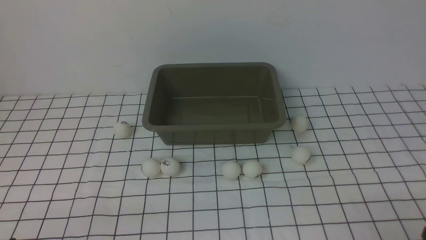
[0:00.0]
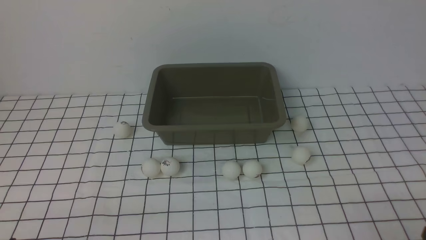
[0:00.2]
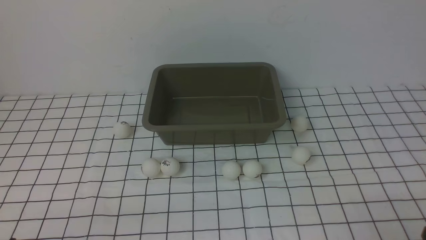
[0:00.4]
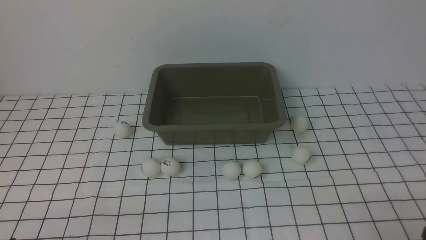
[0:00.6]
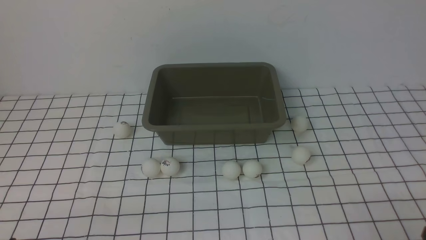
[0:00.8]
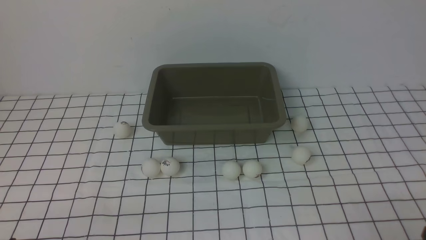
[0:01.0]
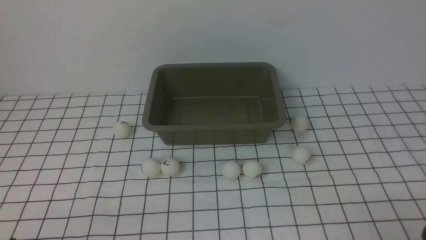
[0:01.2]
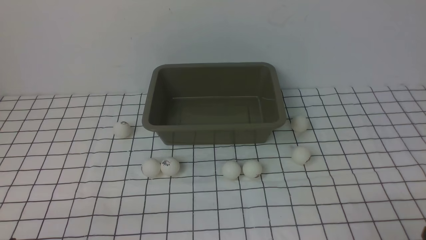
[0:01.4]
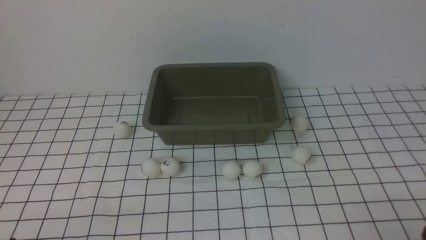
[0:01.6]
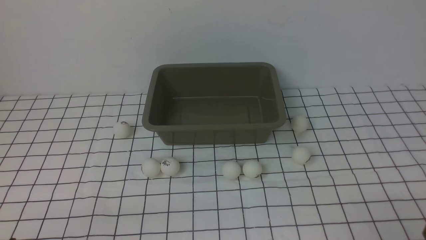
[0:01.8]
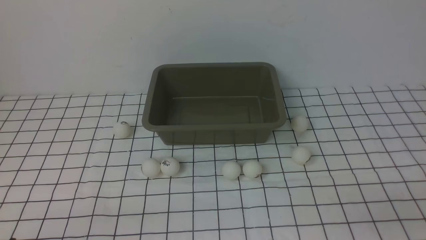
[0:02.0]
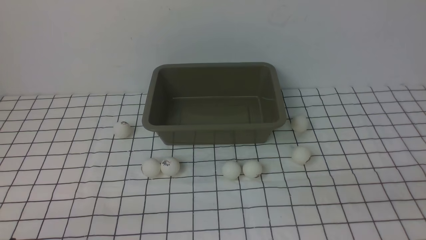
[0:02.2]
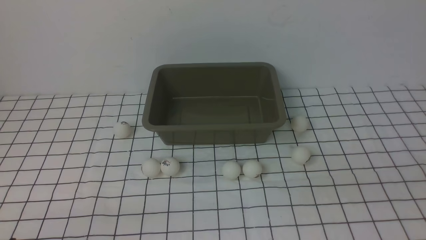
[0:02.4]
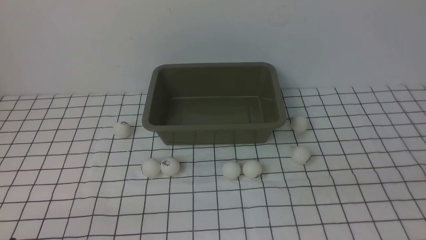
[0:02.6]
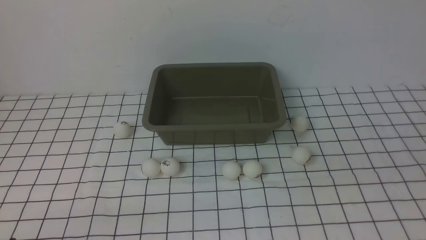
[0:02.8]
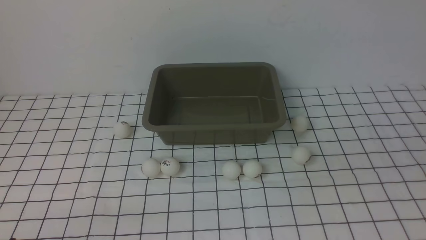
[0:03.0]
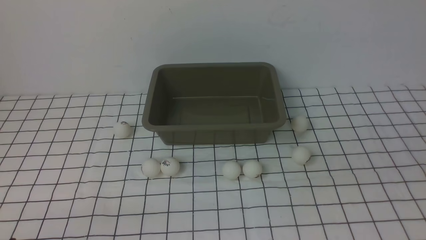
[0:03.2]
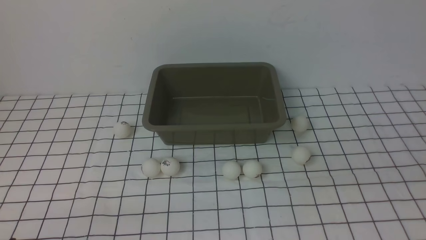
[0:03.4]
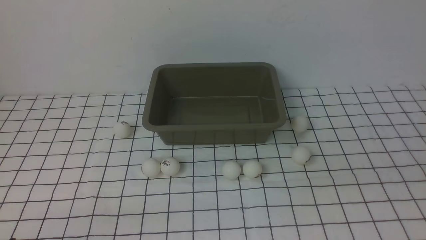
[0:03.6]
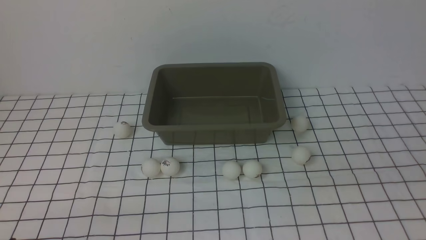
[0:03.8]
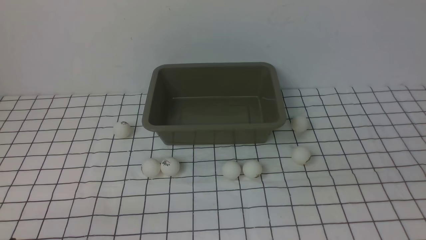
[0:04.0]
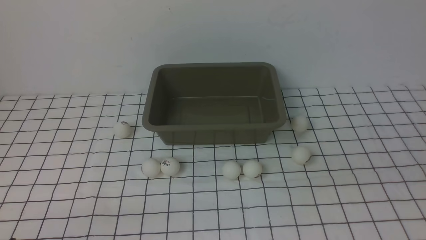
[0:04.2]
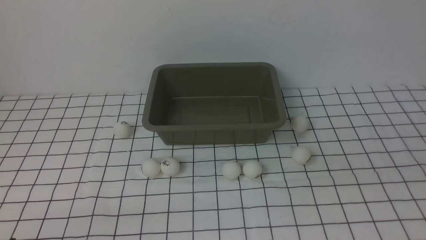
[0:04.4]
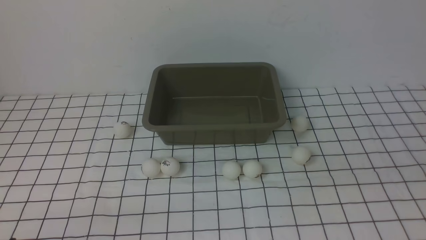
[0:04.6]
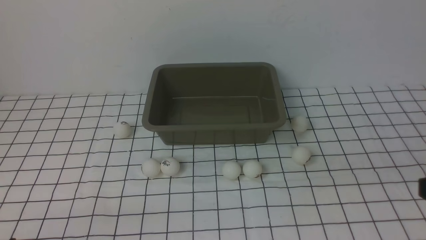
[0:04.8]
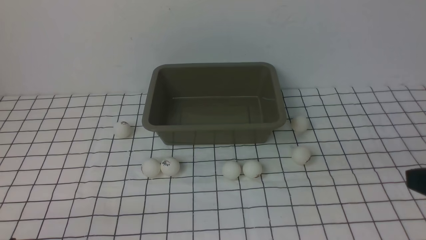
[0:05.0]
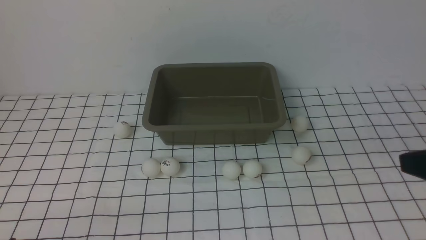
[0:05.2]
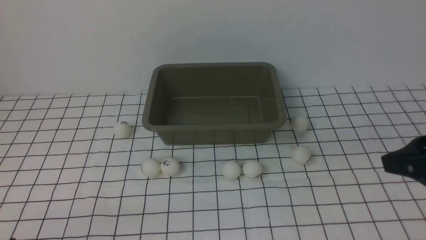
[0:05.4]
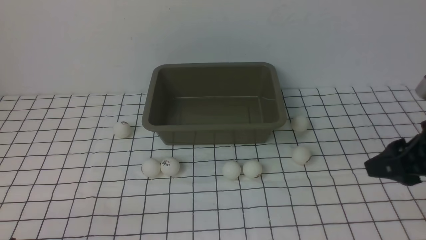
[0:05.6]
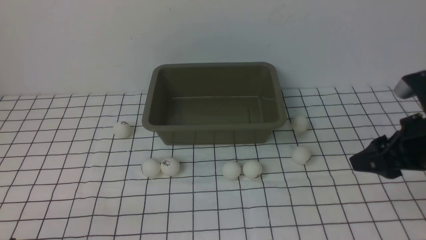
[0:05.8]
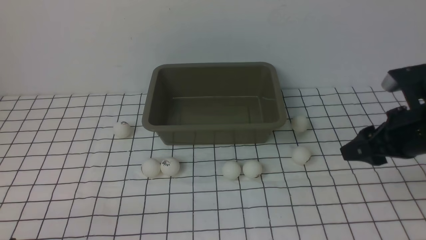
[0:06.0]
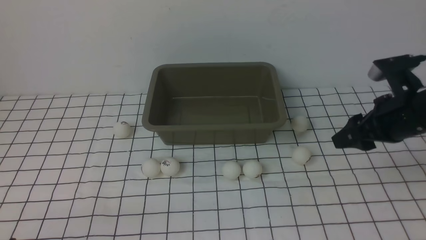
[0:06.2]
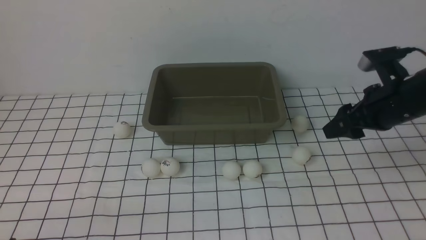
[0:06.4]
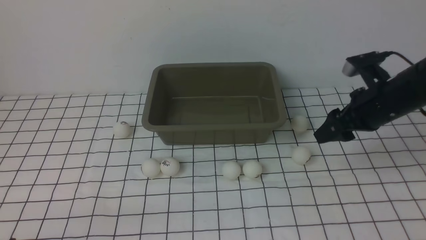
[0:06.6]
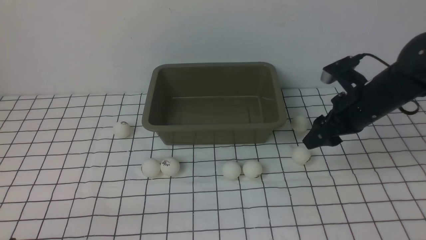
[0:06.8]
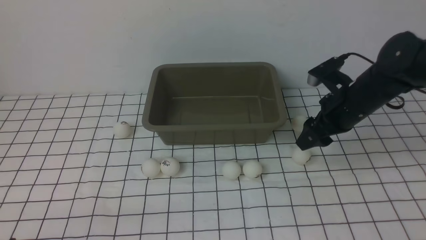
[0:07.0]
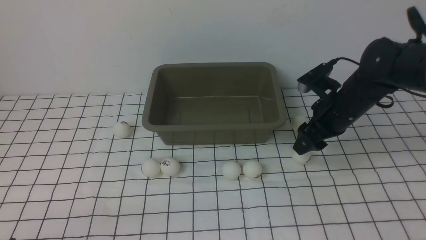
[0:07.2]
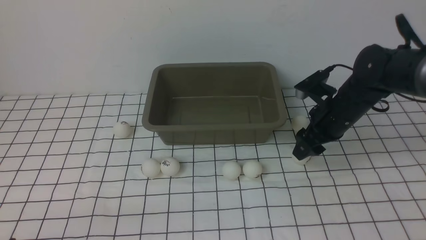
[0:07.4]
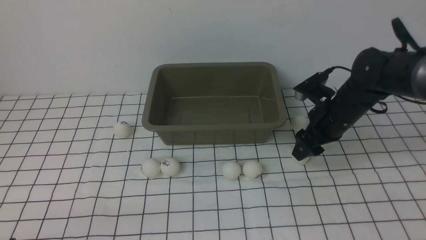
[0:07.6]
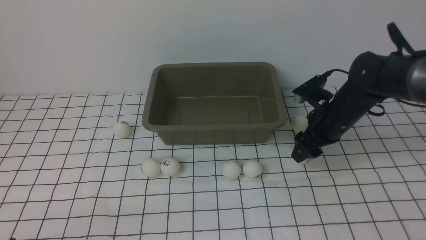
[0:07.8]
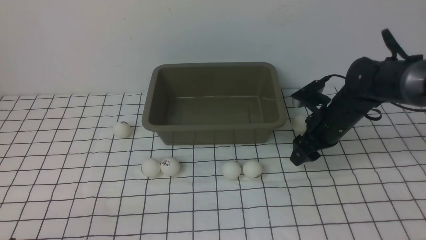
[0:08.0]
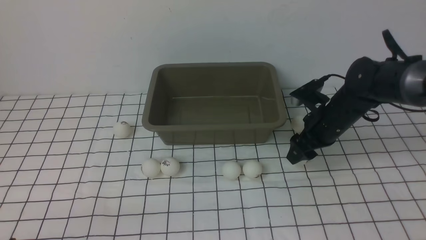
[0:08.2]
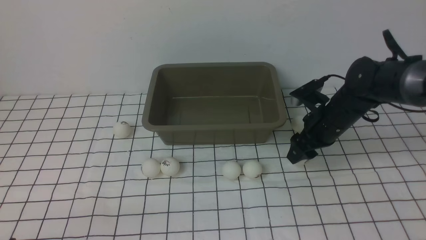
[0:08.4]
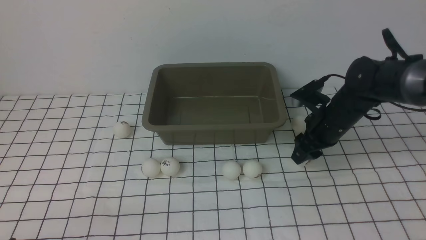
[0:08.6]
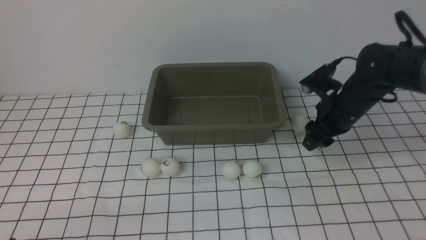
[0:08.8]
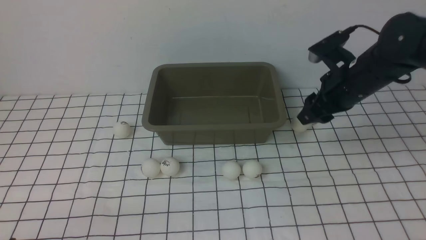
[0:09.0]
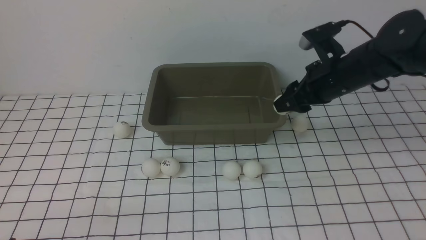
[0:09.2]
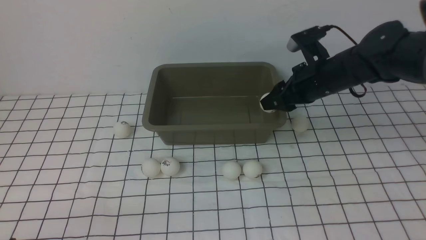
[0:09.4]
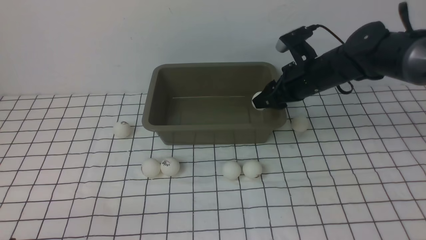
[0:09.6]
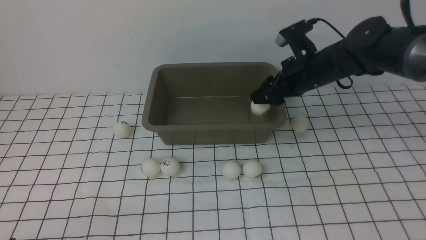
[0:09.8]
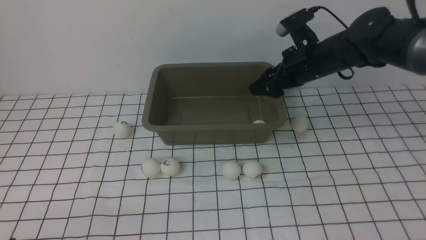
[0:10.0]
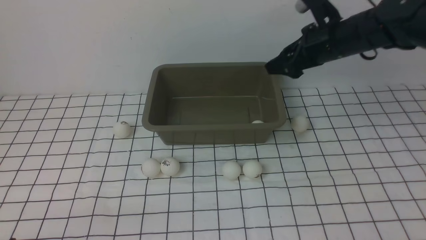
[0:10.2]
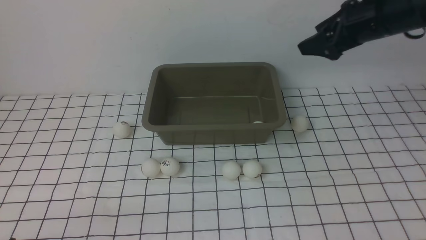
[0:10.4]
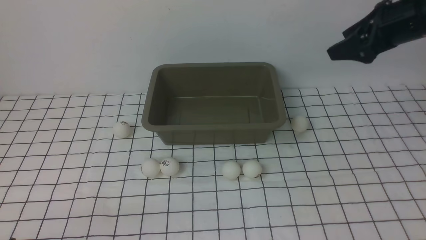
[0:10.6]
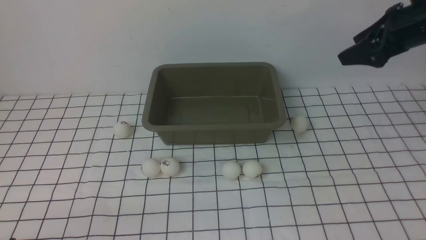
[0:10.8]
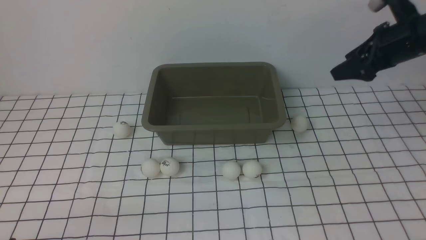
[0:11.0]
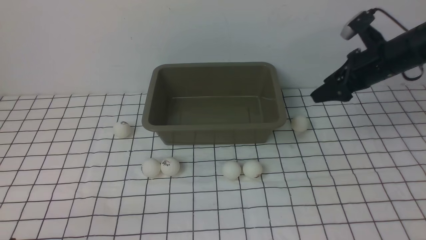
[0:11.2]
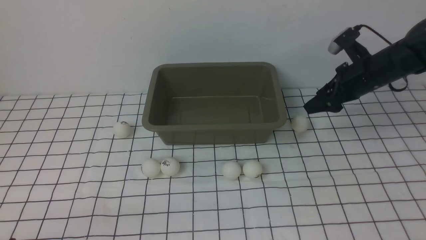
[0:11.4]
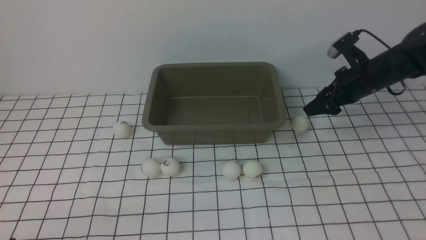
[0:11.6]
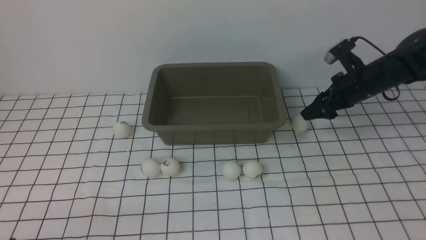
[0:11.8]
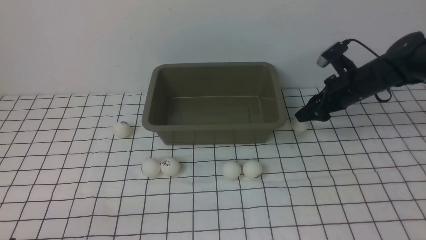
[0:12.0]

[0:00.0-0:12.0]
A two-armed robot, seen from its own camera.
Step, 0:00.0 to 0:08.8: use the right arm to clamp the table tennis ball closest to it.
Step, 0:09.2 to 0:10.0: use the right arm to put the table tennis ball into the box.
0:00.0 to 0:01.6: Both grippers stay about where they are.
0:04.4 to 0:06.0: The right gripper travels forward by approximately 20 cm.
0:06.0 to 0:07.6: The right gripper heads forward, downward and to the left, covering about 15 cm.
0:07.6 to 0:09.0: The right gripper moves upward, some 10 cm, and closes up.
0:09.0 to 0:10.4: The right gripper is displaced upward by roughly 10 cm, and opens its fingers.
0:10.4 to 0:12.0: The right gripper travels downward by about 15 cm.

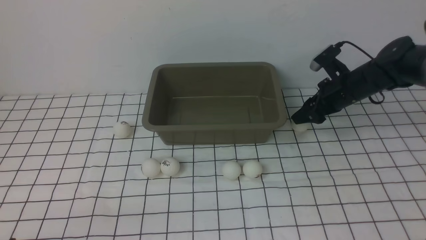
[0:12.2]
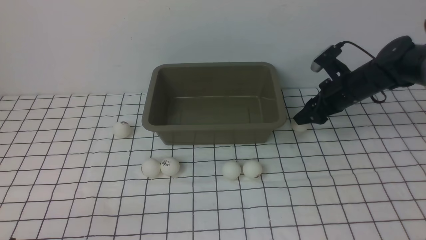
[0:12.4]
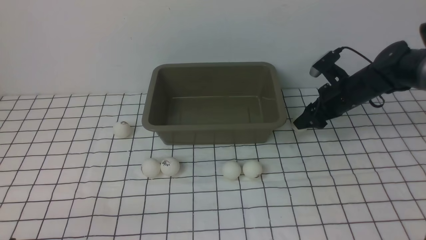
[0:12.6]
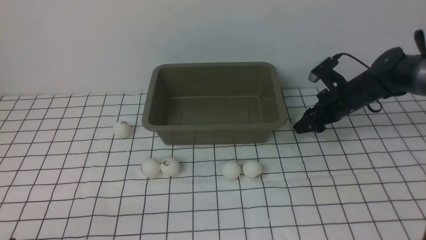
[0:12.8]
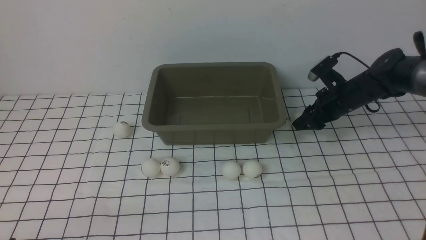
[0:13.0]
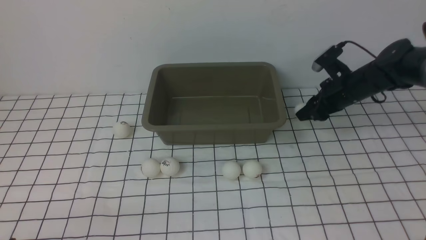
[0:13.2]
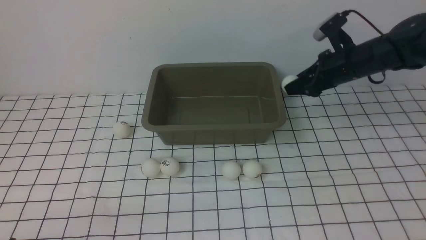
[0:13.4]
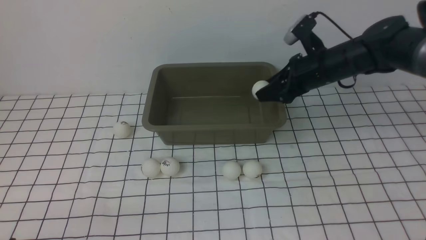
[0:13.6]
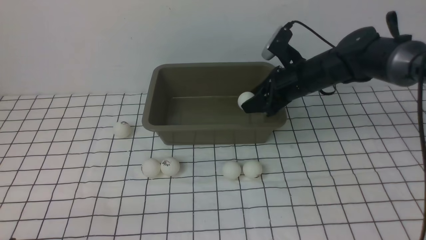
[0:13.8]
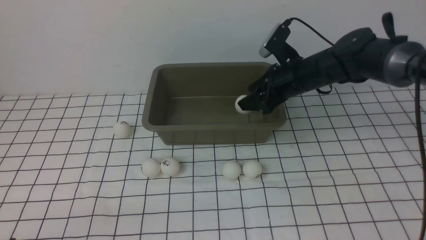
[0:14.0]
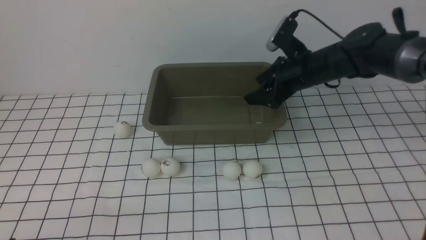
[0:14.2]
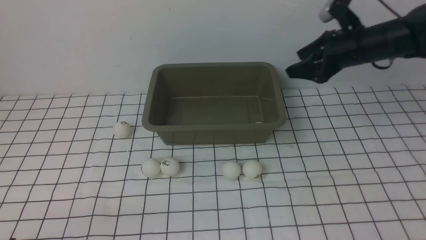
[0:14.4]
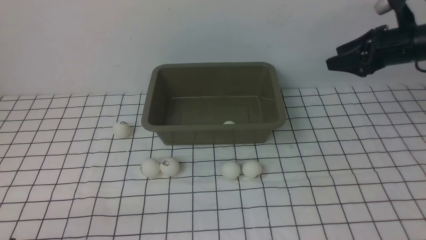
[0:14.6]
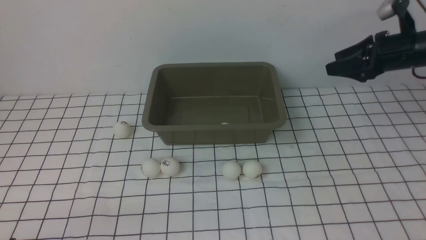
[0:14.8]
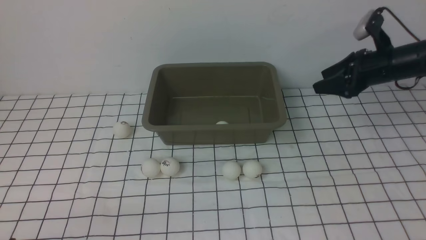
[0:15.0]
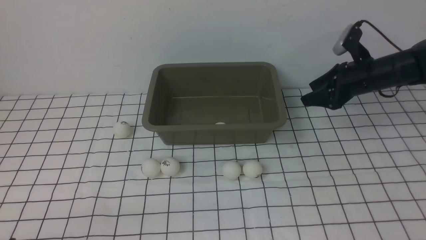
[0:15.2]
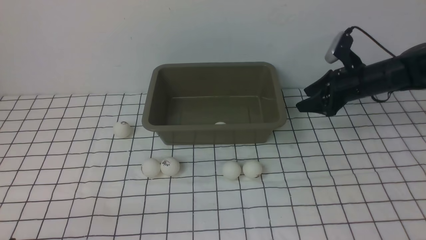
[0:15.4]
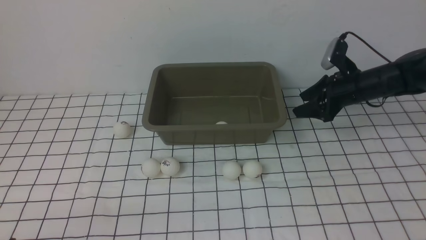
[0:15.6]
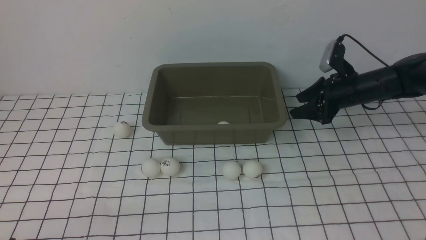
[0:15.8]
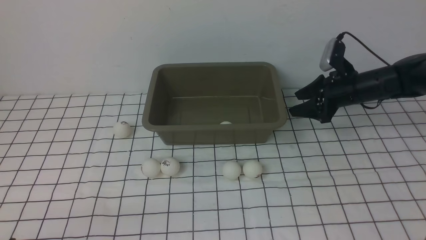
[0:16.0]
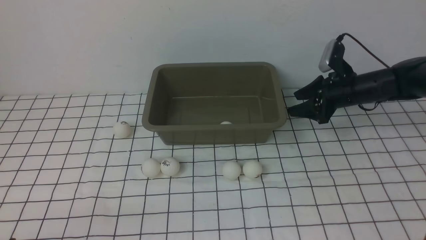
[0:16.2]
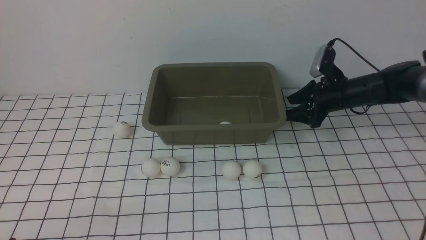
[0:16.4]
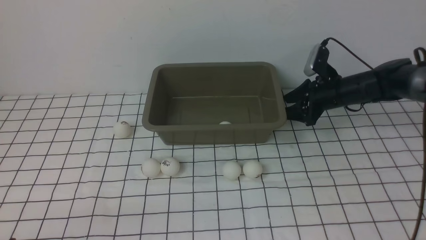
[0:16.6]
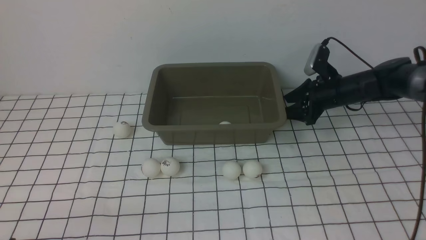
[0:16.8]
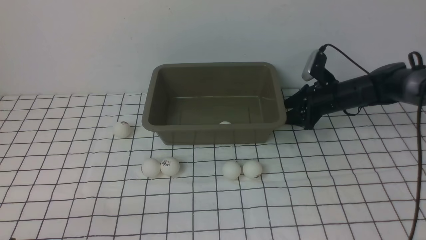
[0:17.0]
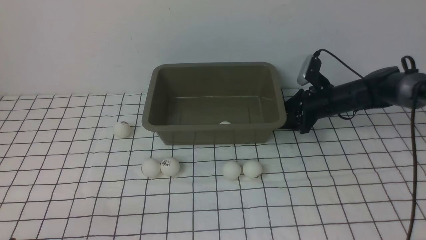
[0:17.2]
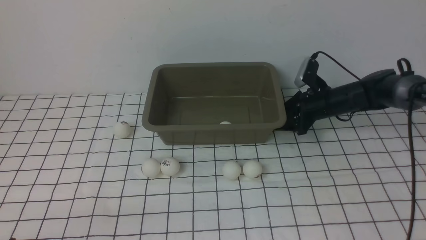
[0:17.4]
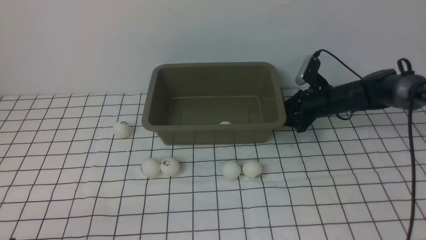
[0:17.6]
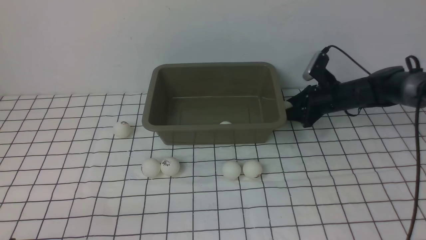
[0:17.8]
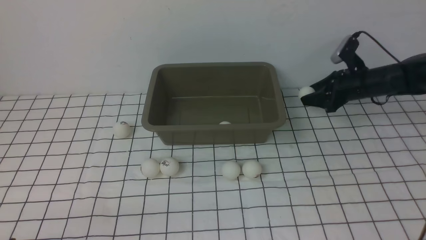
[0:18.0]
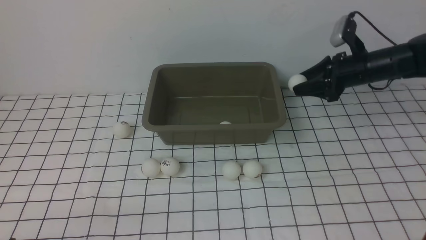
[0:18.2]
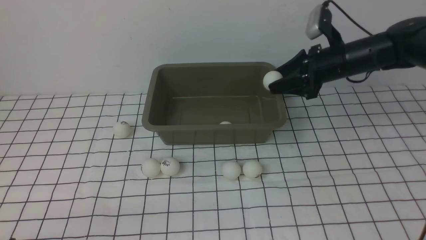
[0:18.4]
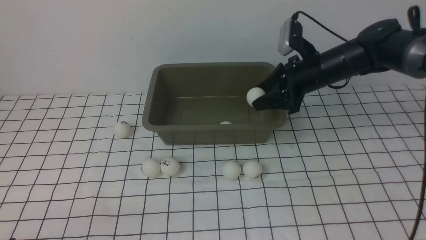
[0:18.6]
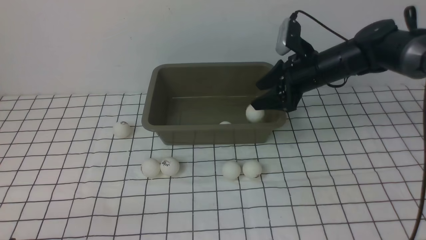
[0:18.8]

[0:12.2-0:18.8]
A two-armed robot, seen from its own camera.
Step, 0:13.4 to 0:14.2: use the right arm to put the table tennis ball into the box.
Step, 0:14.4 to 0:18.0: use the right arm to clamp the table tennis ball closest to it.
0:12.2 to 0:13.8: The right gripper goes approximately 10 cm to the left.
0:13.8 to 0:15.4: The right gripper goes about 15 cm to the right and downward.
0:15.4 to 0:17.2: The right gripper heads downward, covering about 5 cm.
0:17.2 to 0:18.8: The right gripper heads upward, covering approximately 10 cm.
